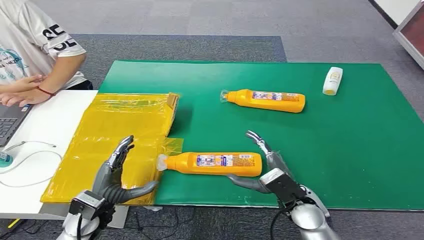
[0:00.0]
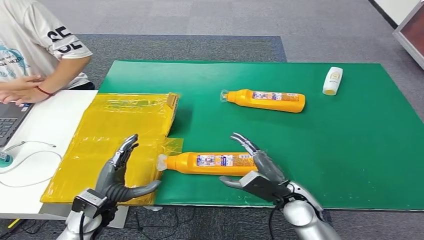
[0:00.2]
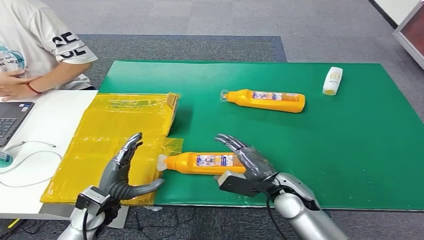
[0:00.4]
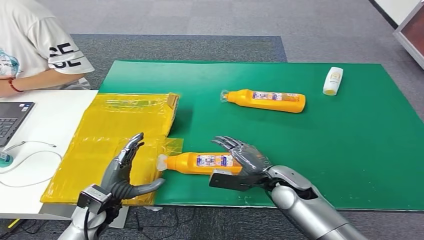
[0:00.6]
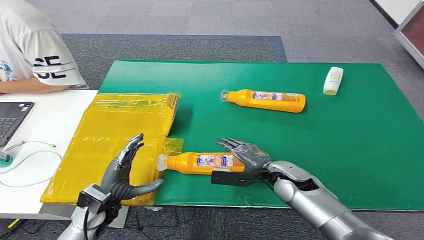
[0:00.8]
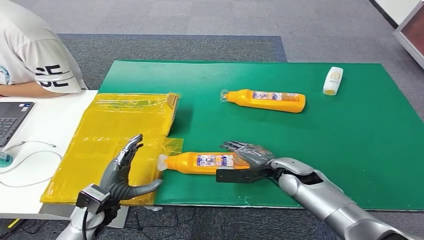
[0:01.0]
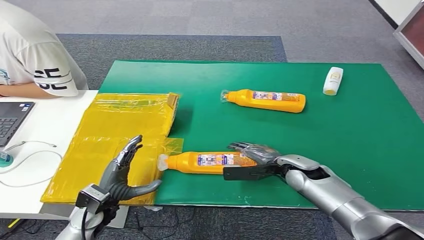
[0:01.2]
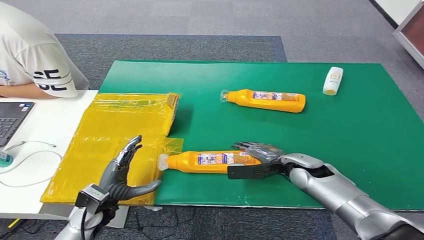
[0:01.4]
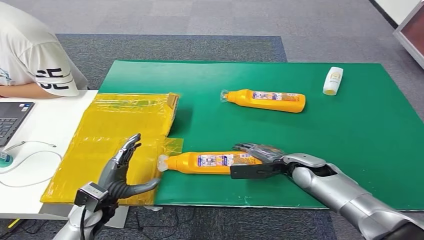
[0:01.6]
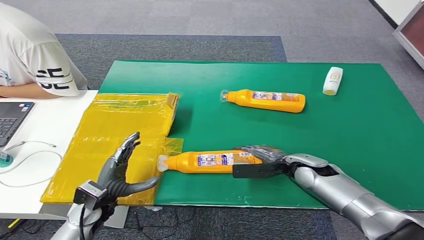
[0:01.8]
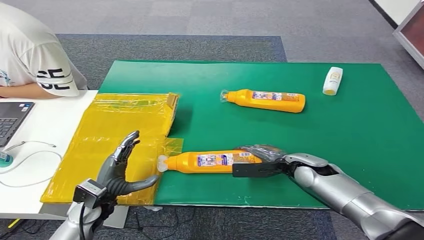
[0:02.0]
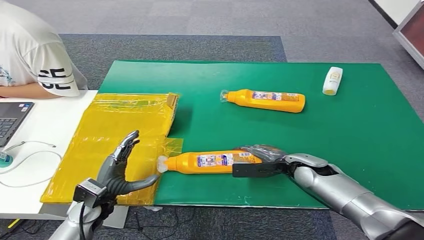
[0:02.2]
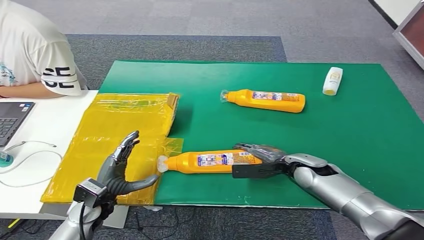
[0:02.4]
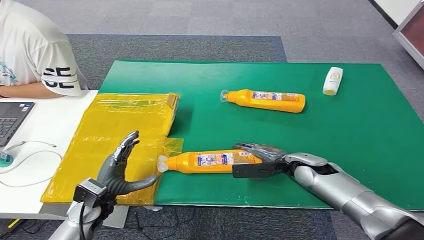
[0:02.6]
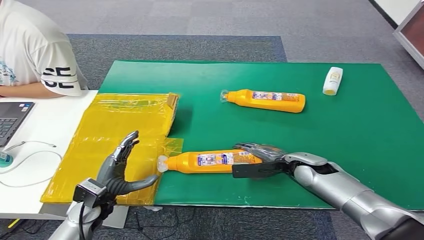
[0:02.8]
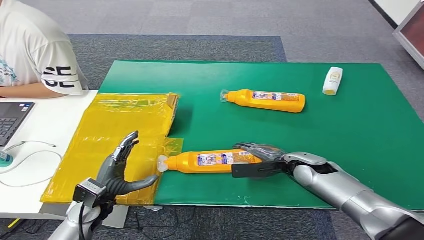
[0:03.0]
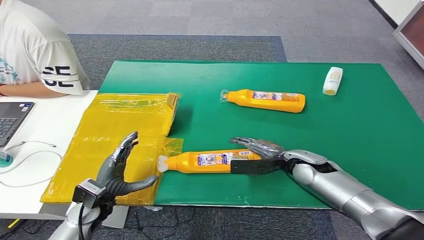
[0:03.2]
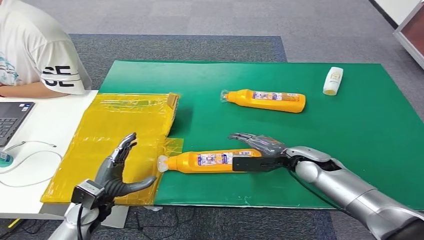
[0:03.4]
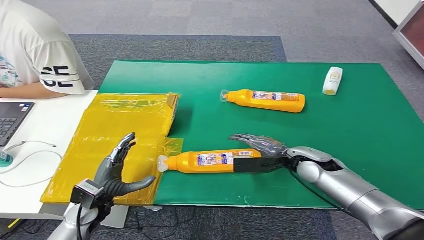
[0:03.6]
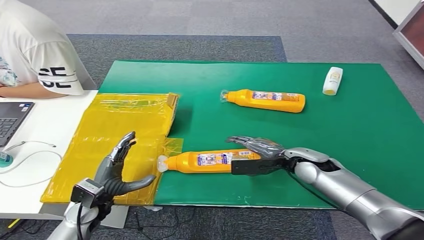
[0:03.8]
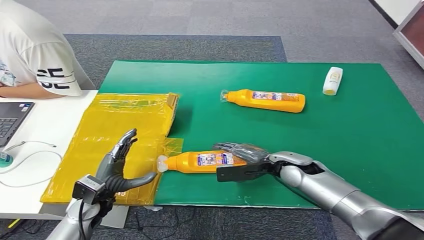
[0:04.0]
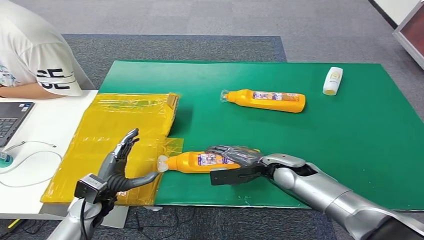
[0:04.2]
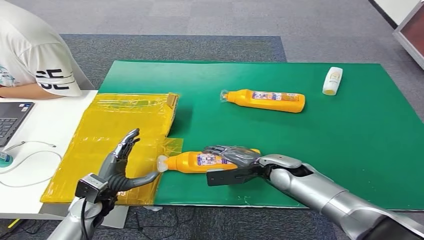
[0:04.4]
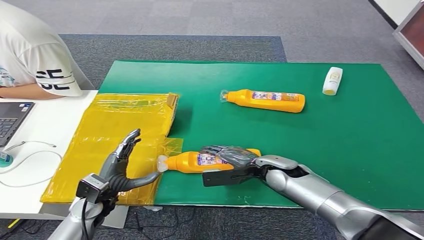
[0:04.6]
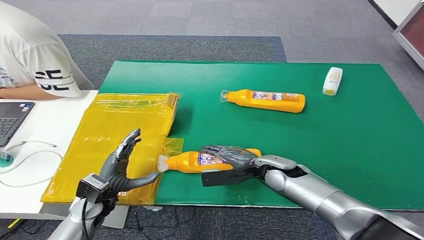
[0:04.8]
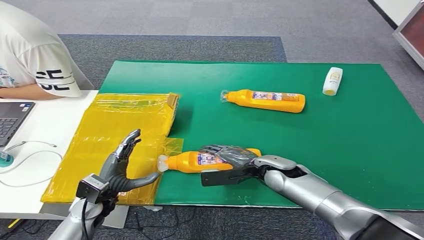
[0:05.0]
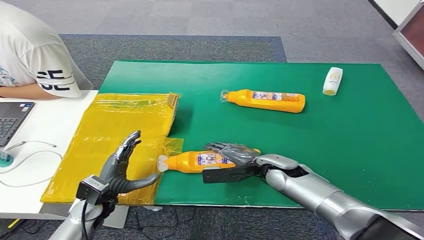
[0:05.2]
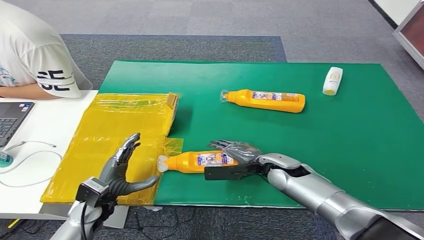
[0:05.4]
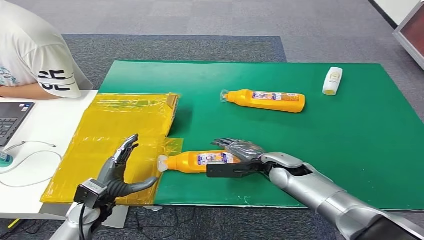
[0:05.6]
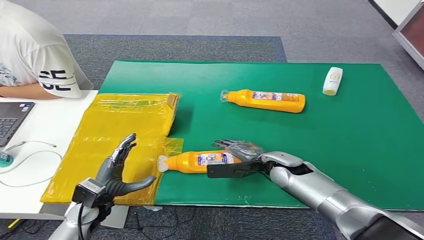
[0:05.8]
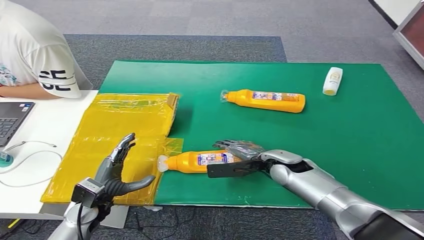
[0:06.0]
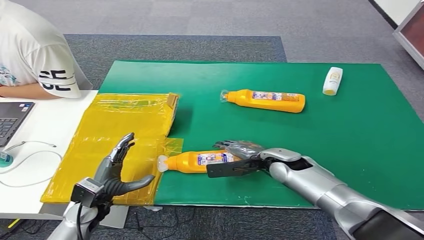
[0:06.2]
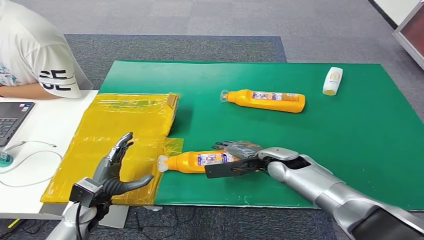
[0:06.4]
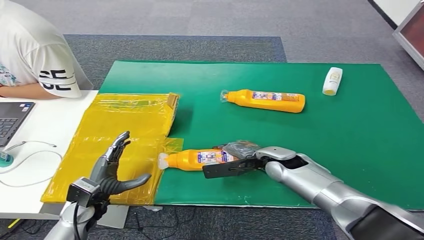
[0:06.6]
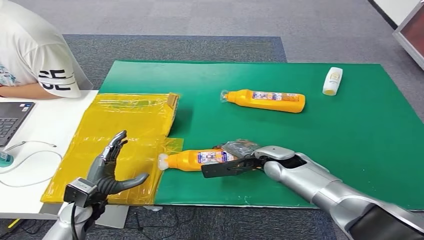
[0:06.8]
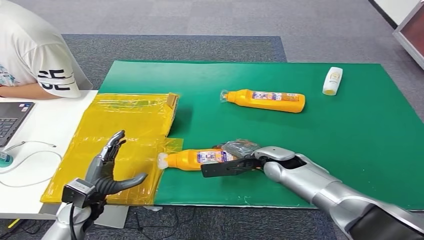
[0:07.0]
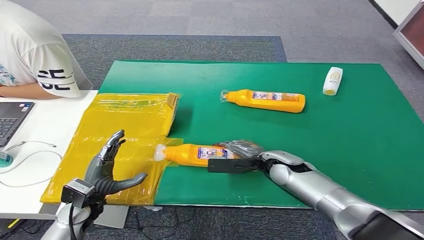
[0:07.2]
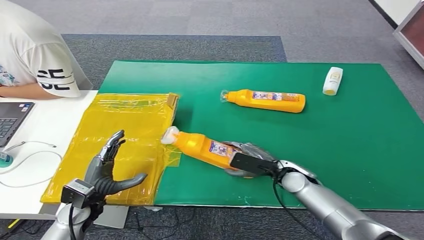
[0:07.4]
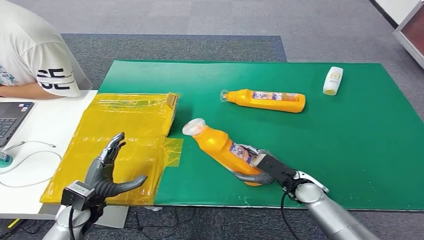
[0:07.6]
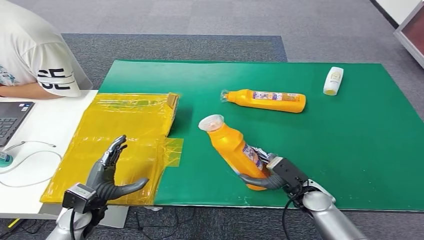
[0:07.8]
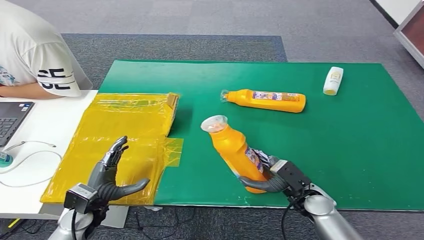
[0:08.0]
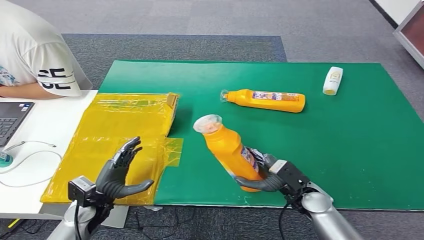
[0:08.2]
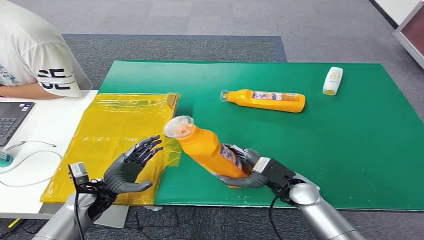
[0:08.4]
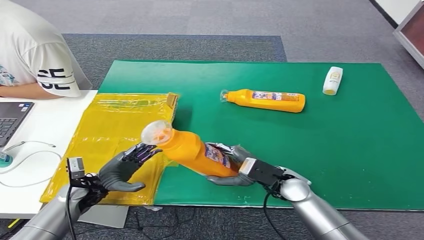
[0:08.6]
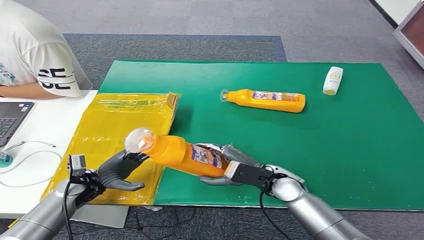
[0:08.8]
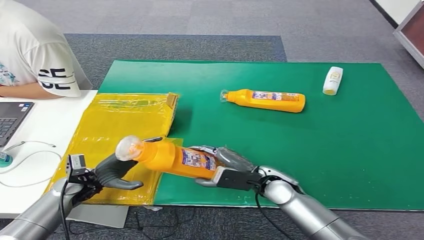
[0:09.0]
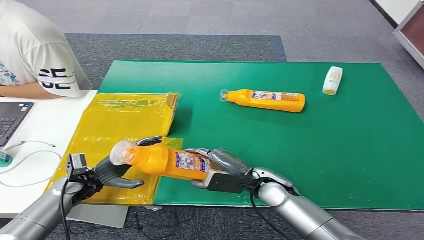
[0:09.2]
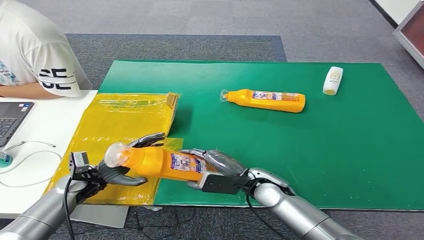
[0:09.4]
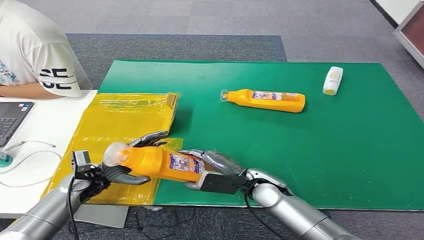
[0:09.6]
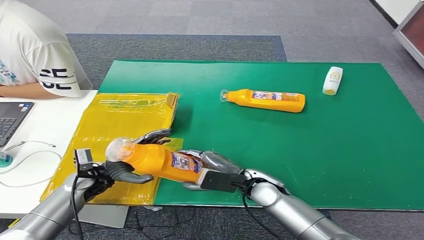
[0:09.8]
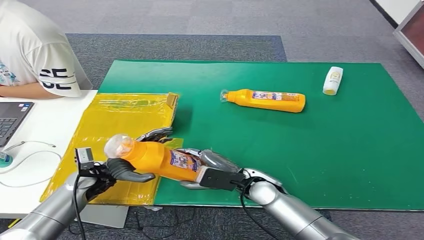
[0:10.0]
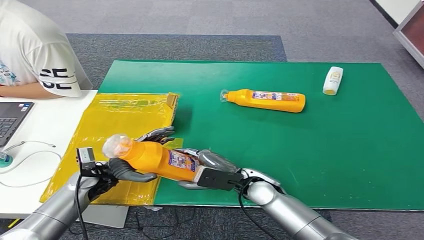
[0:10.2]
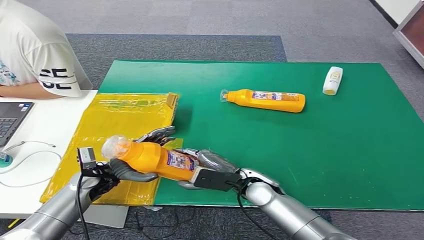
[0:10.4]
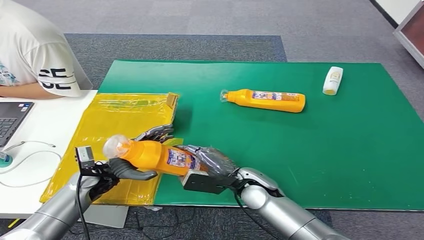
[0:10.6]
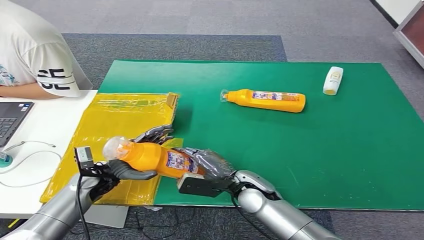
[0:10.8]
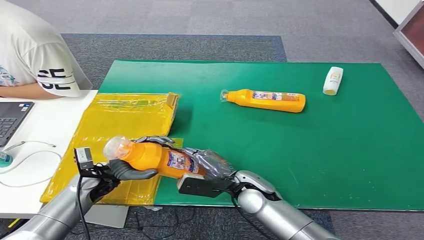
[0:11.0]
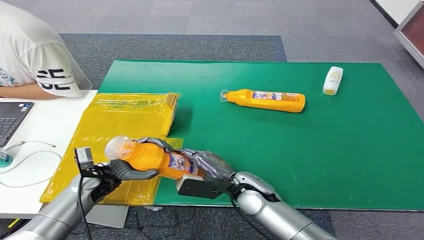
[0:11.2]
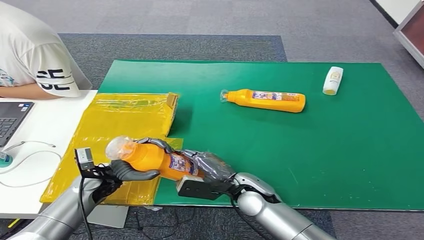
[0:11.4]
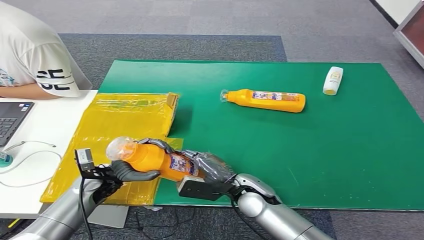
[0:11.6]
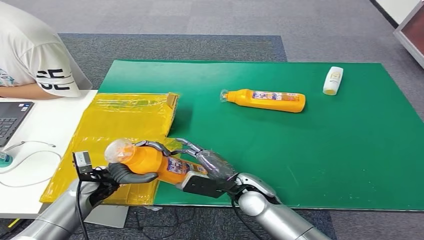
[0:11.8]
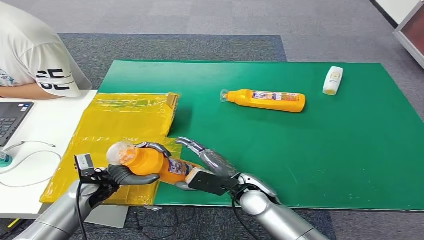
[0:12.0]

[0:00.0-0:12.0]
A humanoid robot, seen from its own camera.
Step, 0:00.0 to 0:08.0: Pick up the bottle from the table.
0:01.6 to 0:03.0: Both hands stay about where they are.
0:03.0 to 0:04.4: The right hand goes approximately 5 cm to the left.
0:04.4 to 0:06.0: The hands stay close to where they were, moving slightly.
0:06.0 to 0:07.6: The right hand goes roughly 5 cm backward.
0:07.6 to 0:09.0: The right hand heads to the left and upward, covering about 10 cm; the left hand is displaced forward by roughly 5 cm.
0:09.0 to 0:10.4: The left hand shifts some 5 cm to the right.
0:10.4 to 0:12.0: There are only small adjustments of the hands.

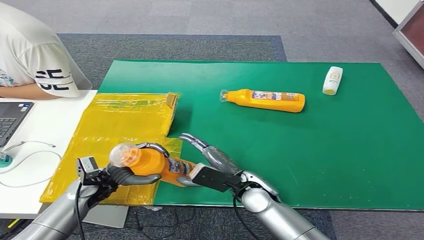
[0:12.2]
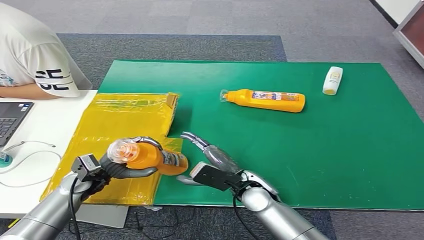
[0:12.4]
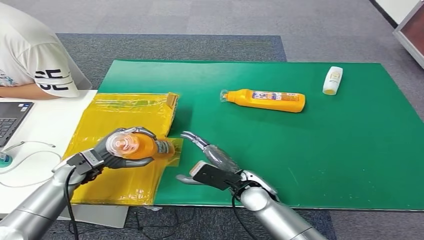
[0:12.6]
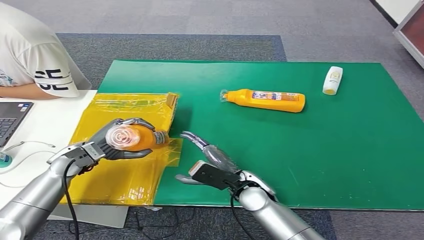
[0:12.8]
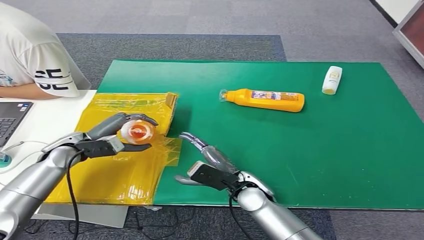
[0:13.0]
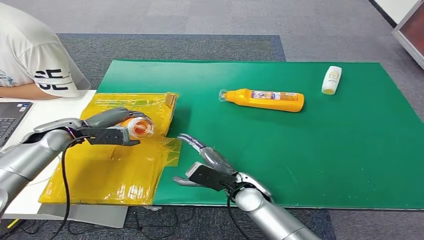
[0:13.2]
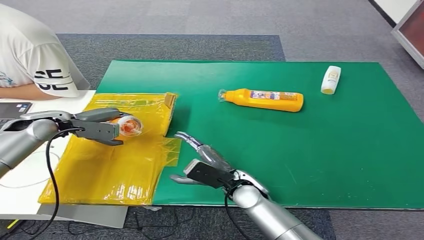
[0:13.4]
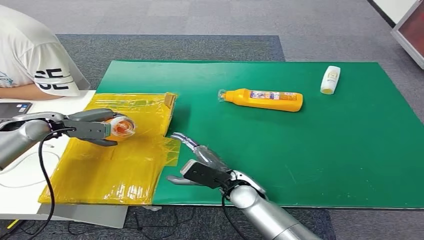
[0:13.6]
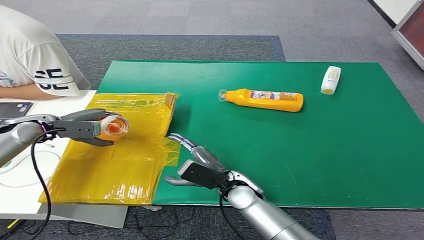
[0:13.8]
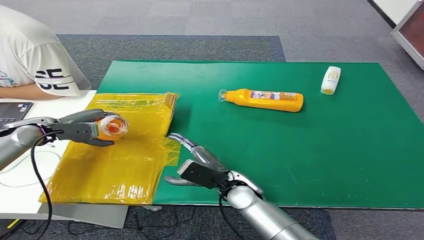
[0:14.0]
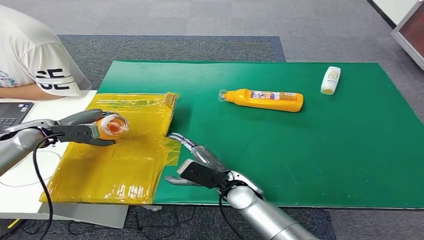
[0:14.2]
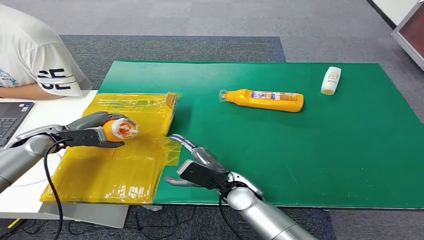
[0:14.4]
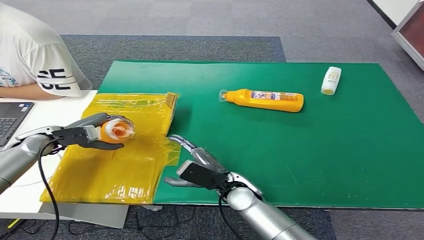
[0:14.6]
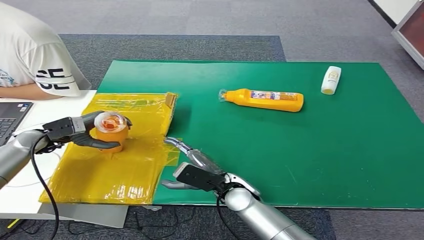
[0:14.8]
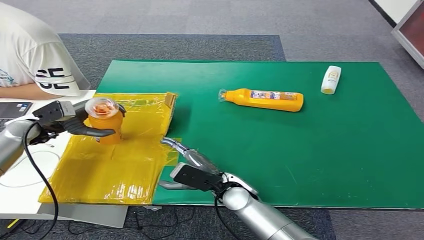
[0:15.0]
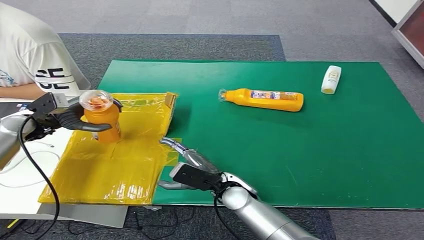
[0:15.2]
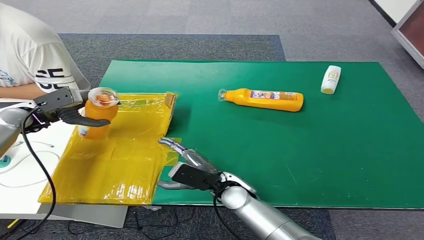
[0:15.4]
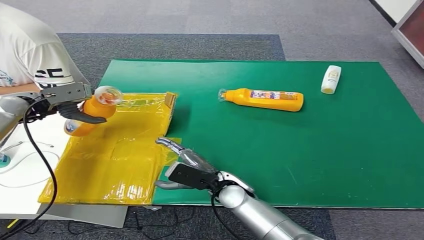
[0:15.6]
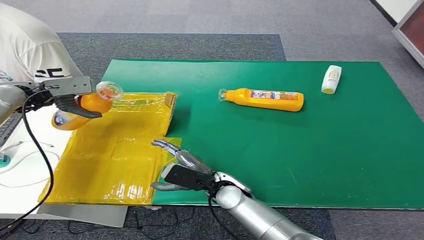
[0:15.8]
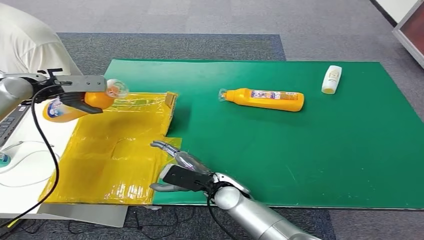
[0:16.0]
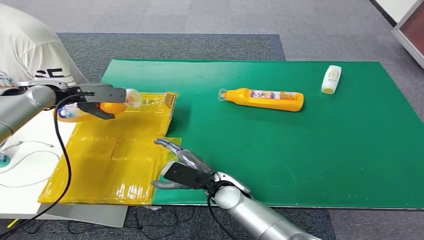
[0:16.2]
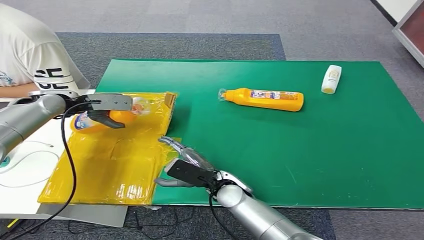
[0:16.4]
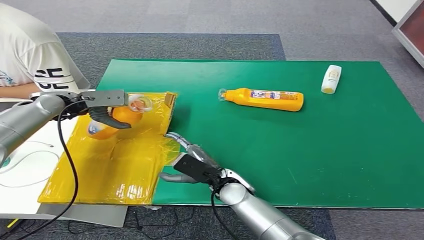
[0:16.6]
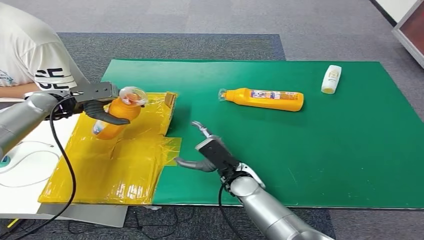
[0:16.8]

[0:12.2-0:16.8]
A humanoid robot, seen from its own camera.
0:12.2 to 0:13.8: The left hand heads to the left, forward and upward, covering roughly 20 cm.
0:15.2 to 0:16.8: The left hand ends up approximately 10 cm from where it was.
